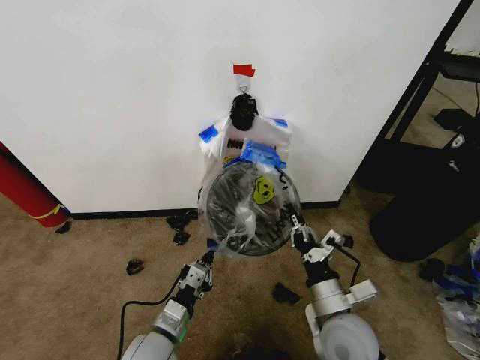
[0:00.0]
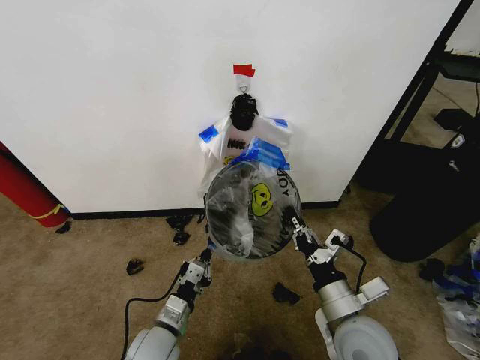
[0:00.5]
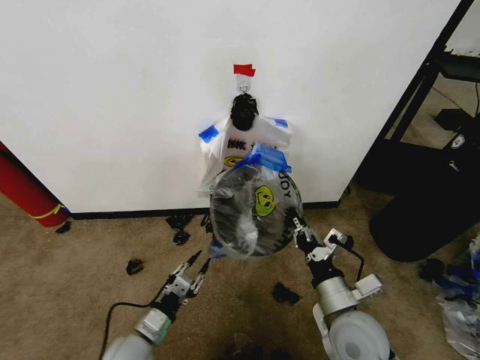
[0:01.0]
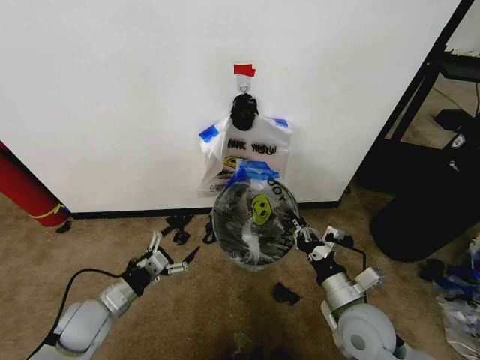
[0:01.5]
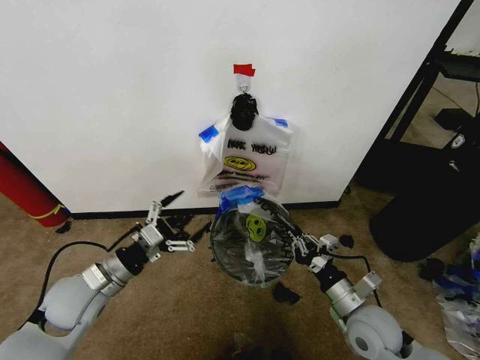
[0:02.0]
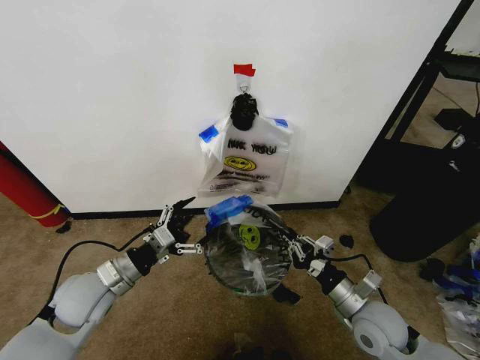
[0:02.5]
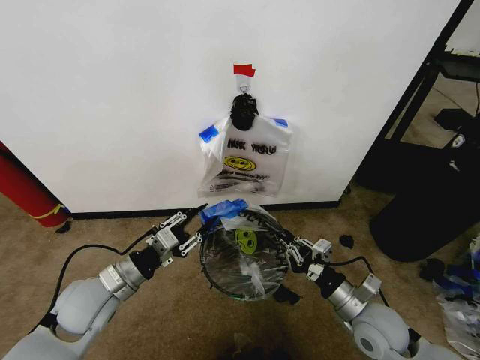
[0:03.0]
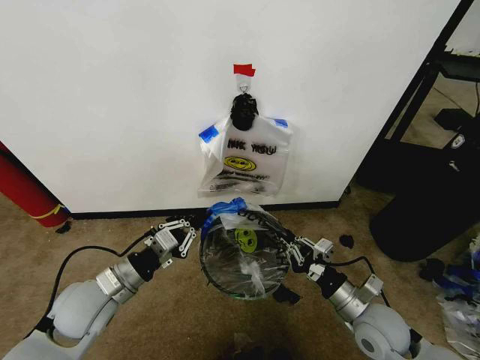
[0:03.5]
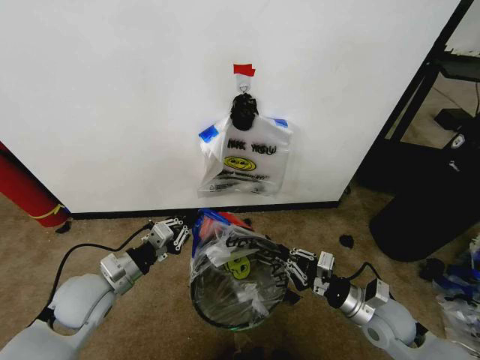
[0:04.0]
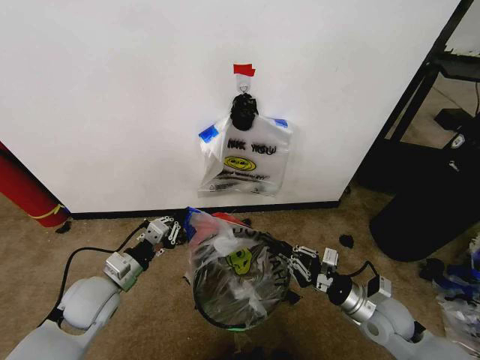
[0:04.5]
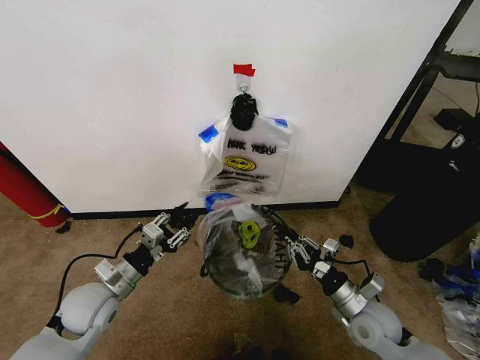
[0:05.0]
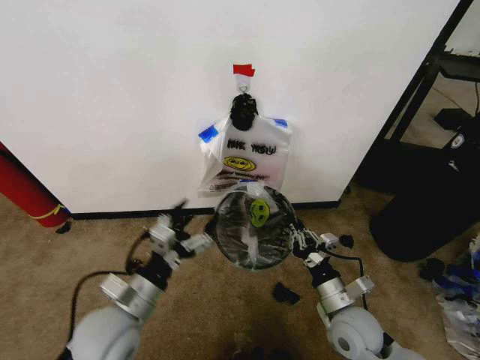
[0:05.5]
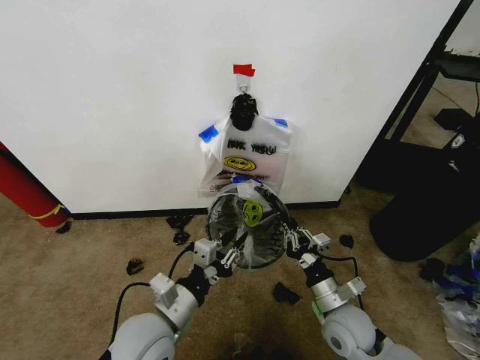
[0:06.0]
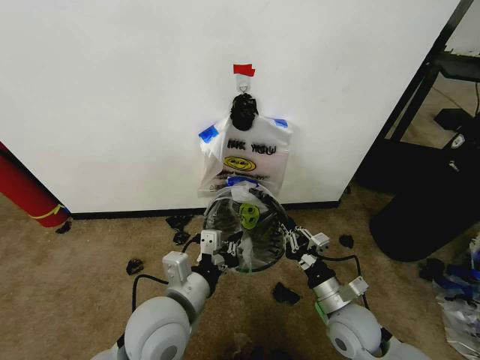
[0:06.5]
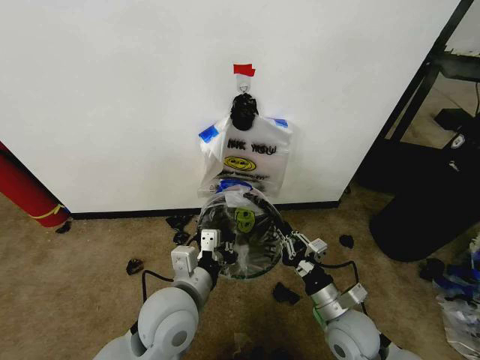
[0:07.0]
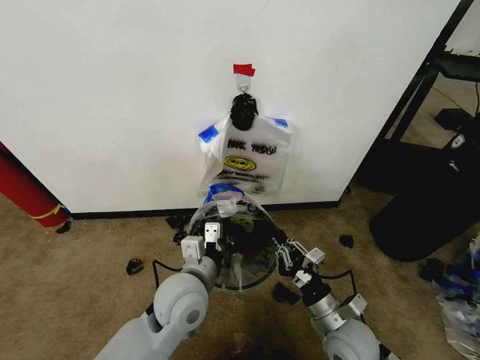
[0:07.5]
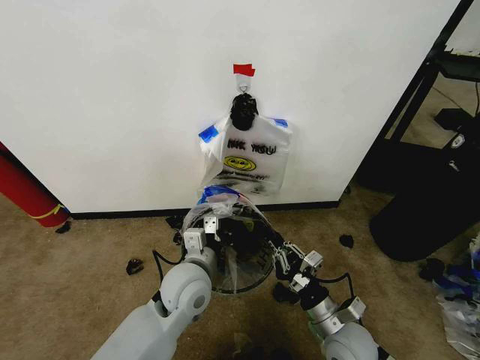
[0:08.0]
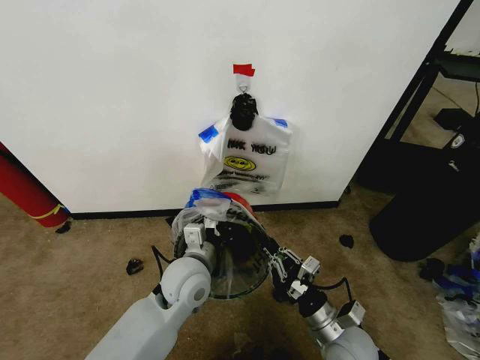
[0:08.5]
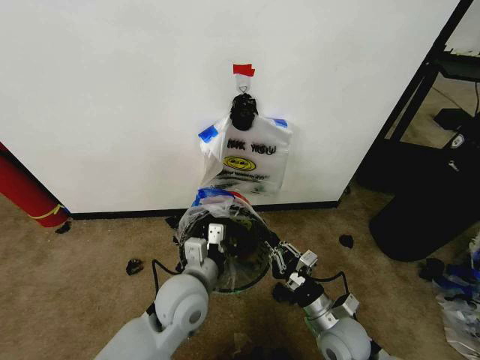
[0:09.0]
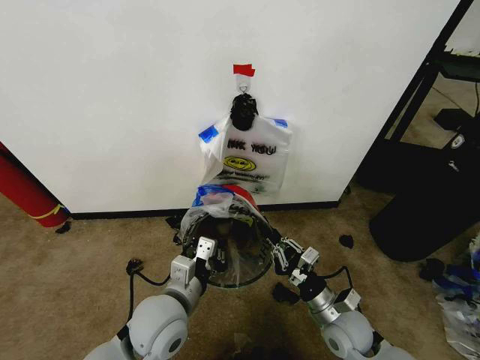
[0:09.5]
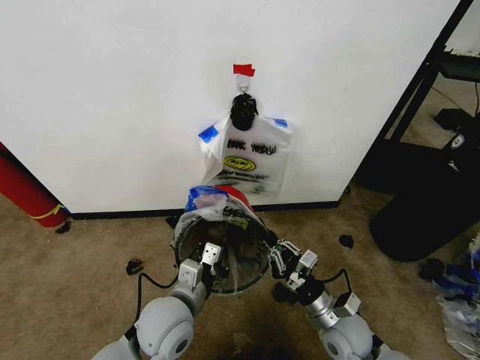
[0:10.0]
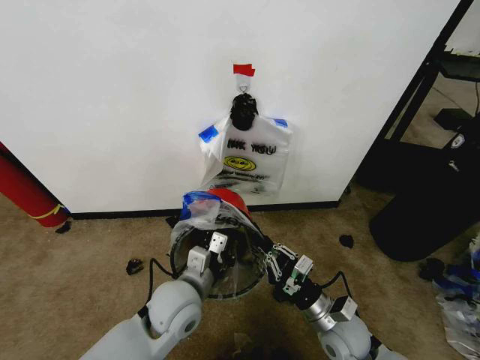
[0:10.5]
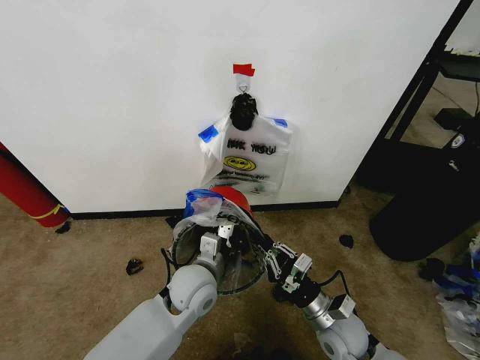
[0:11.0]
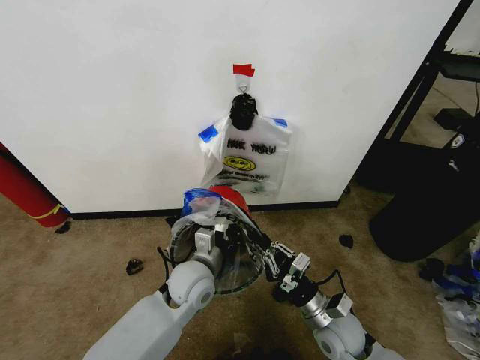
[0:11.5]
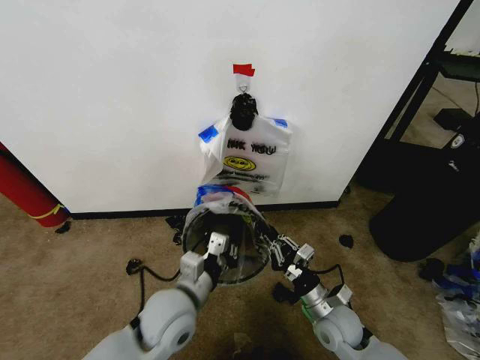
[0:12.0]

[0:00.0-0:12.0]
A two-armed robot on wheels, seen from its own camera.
Task of the whole recording: Pick up the garbage bag from the wall and place it over the trash bin.
0:00.0 to 0:02.0: The right gripper moves to the right, about 5 cm; the left gripper travels to the left, upward and forward by about 20 cm, and opens up.
0:02.0 to 0:04.0: The left gripper closes.
0:04.0 to 0:06.0: The left gripper is displaced to the right and backward by roughly 15 cm, and opens, then closes once more; the right gripper moves to the left, some 10 cm.
0:06.0 to 0:08.0: The left gripper heads forward and to the right, covering some 10 cm.
0:08.0 to 0:10.0: The left gripper goes approximately 5 cm backward.
0:10.0 to 0:12.0: The left gripper moves about 10 cm forward and comes back.

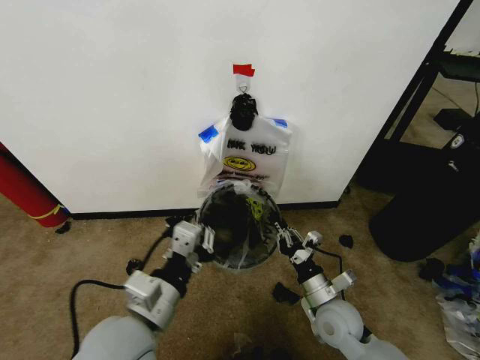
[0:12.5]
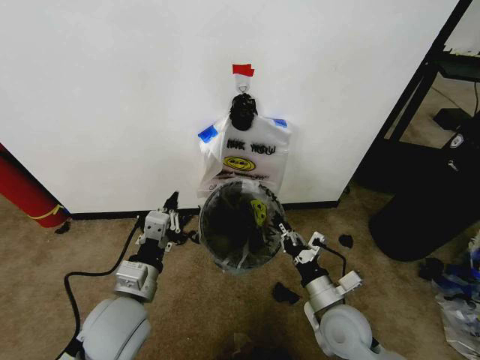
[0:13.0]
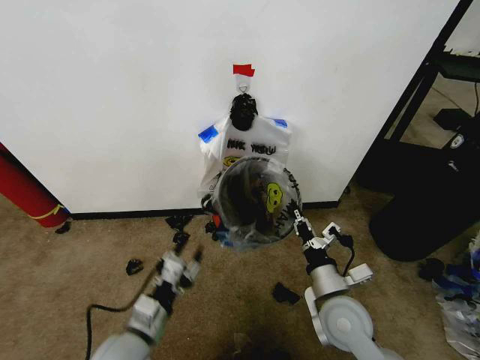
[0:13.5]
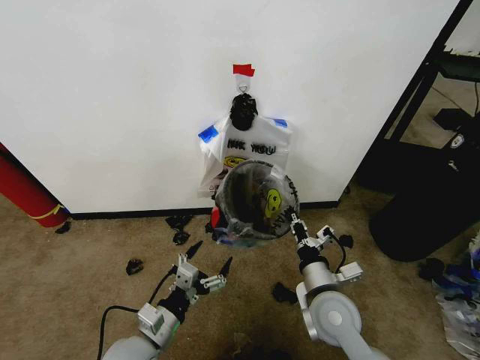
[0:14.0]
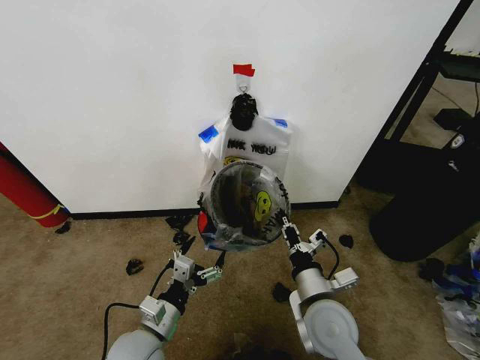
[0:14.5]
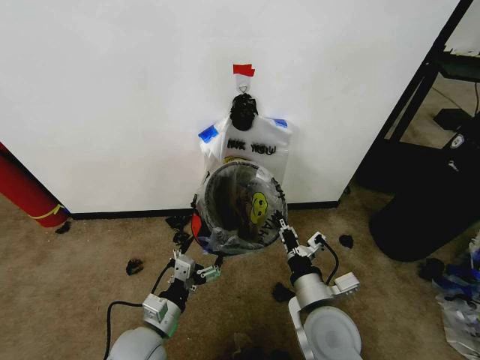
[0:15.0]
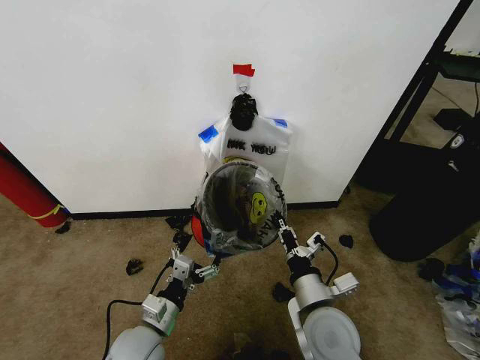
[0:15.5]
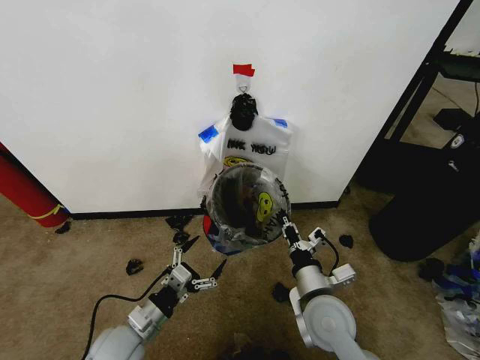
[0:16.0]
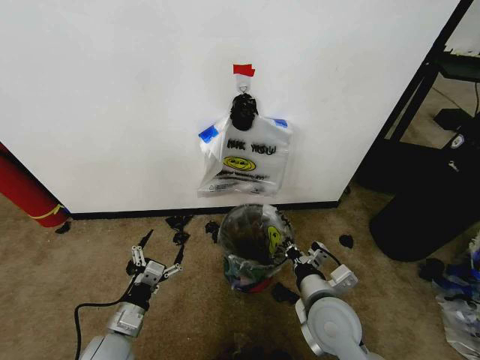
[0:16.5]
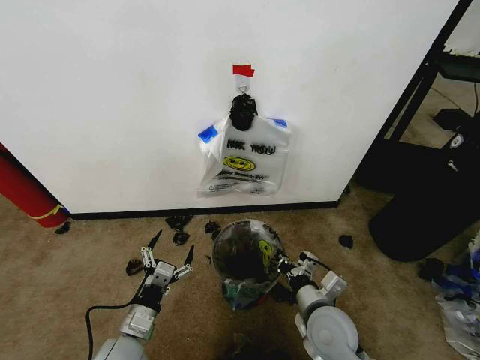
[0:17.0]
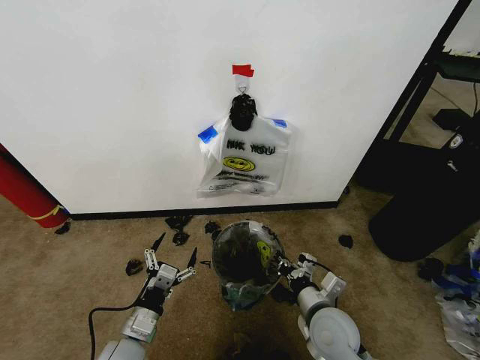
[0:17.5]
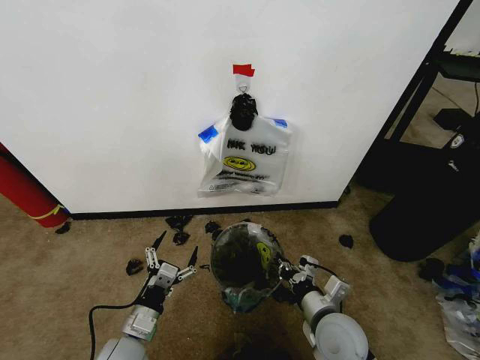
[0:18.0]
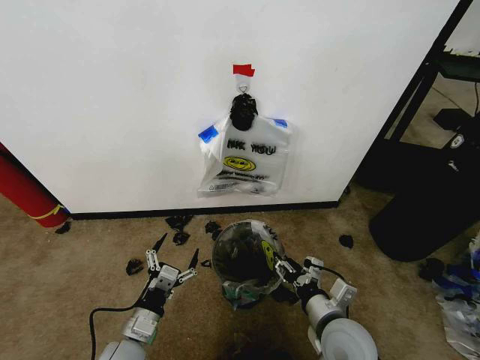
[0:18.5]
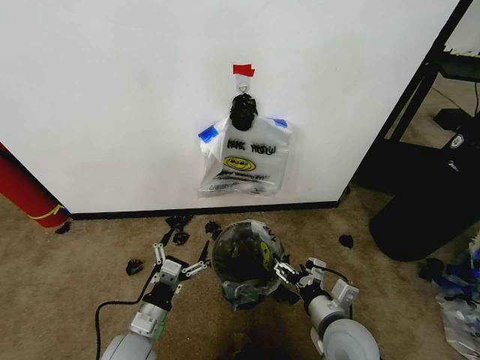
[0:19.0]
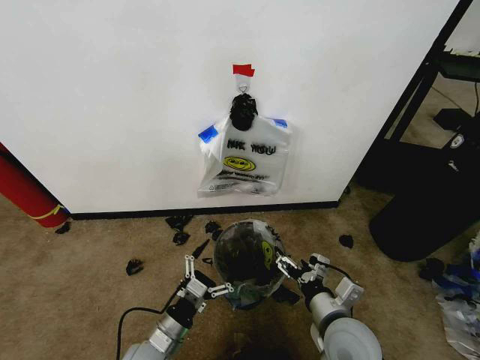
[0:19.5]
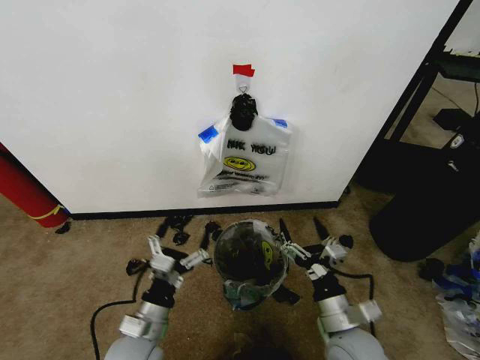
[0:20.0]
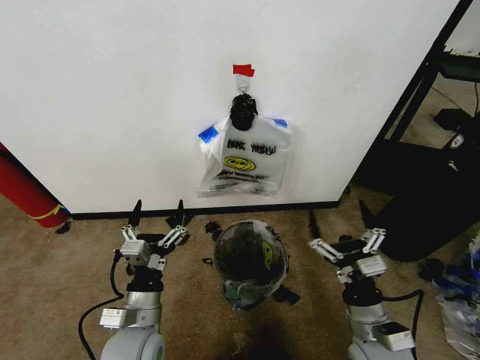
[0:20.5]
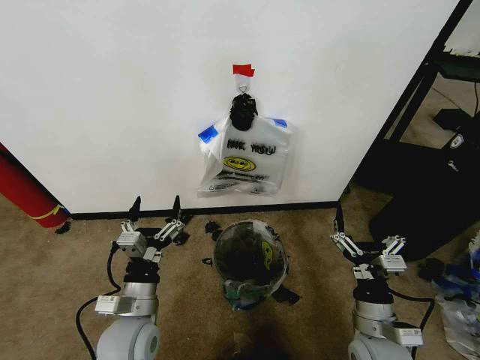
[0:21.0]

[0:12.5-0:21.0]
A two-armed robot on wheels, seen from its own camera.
Task of the whole recording: Pick up the garbage bag from the wall and place it over the trash bin.
0:12.5 to 0:14.5: The left gripper is displaced downward by approximately 15 cm, and opens up. Meanwhile the right gripper shifts about 10 cm upward and to the left.
0:14.5 to 0:16.5: The left gripper goes about 5 cm to the left.
0:16.5 to 0:19.0: The right gripper shifts by some 5 cm, and opens.
0:19.0 to 0:21.0: The right gripper shifts roughly 5 cm to the right. Meanwhile the left gripper is displaced upward by roughly 5 cm.
